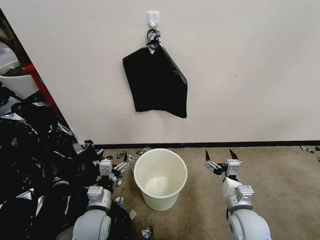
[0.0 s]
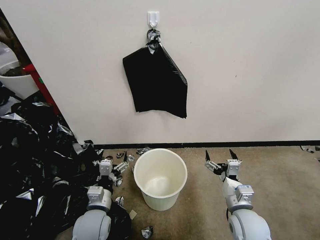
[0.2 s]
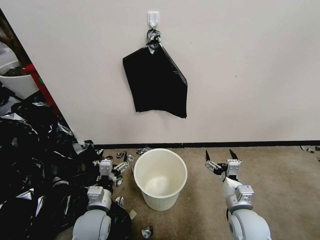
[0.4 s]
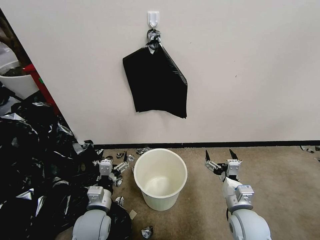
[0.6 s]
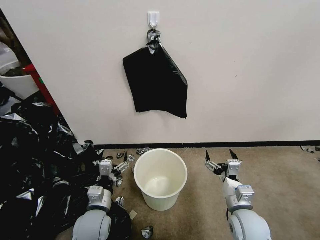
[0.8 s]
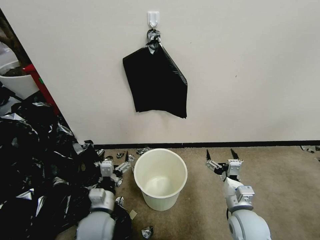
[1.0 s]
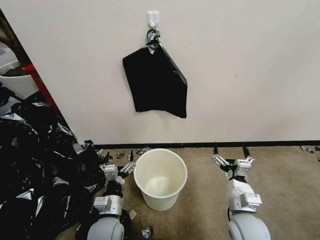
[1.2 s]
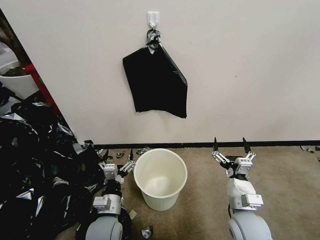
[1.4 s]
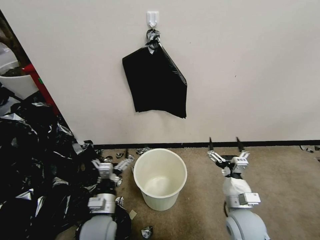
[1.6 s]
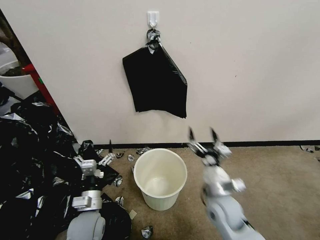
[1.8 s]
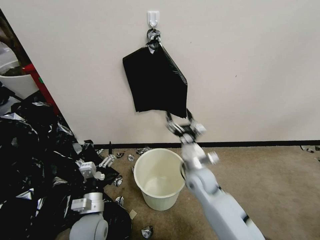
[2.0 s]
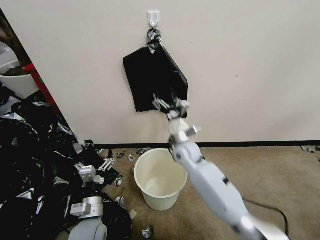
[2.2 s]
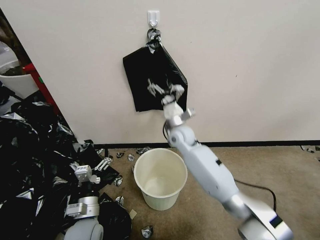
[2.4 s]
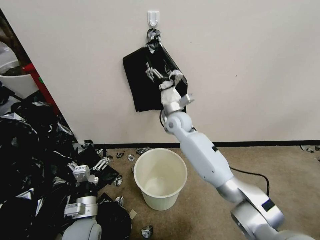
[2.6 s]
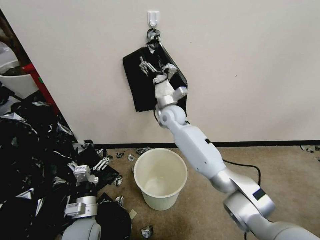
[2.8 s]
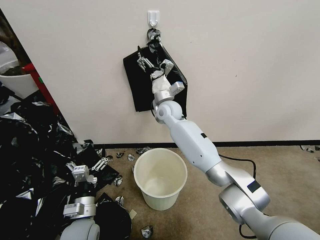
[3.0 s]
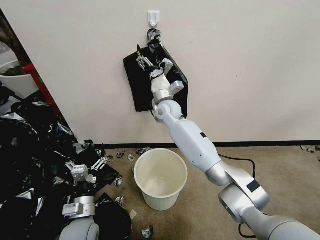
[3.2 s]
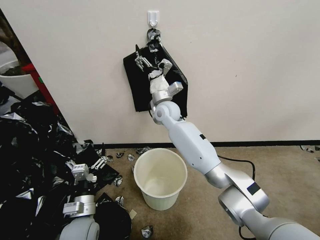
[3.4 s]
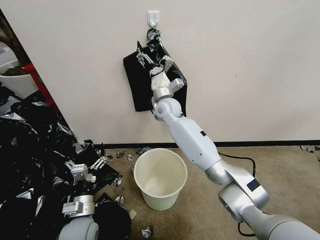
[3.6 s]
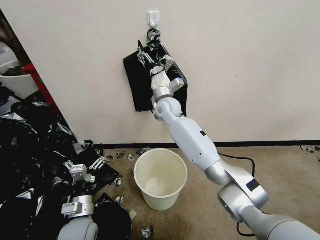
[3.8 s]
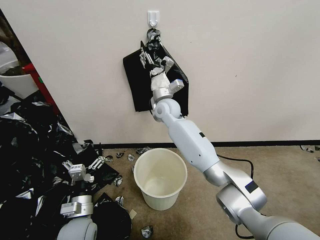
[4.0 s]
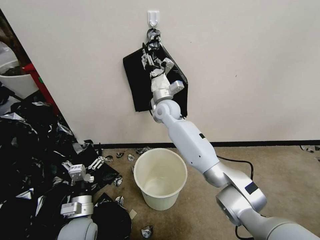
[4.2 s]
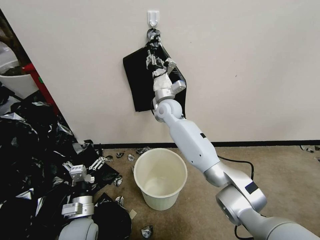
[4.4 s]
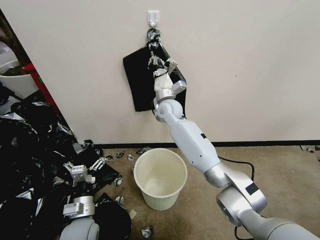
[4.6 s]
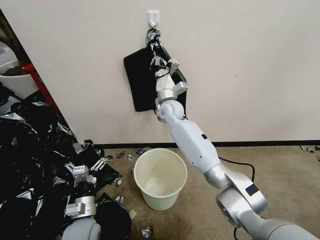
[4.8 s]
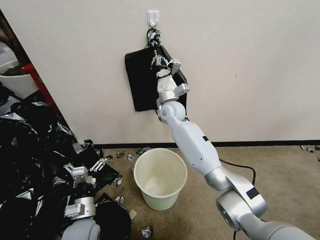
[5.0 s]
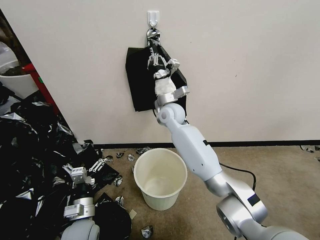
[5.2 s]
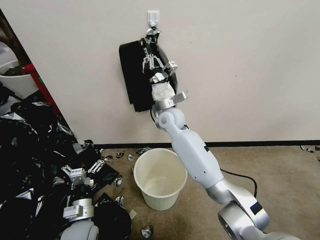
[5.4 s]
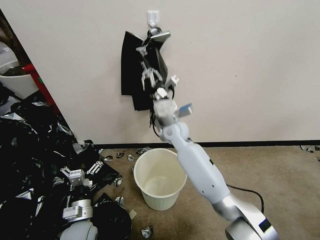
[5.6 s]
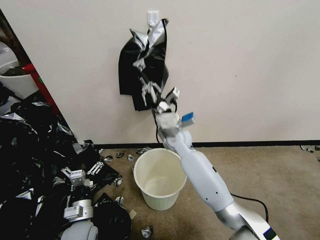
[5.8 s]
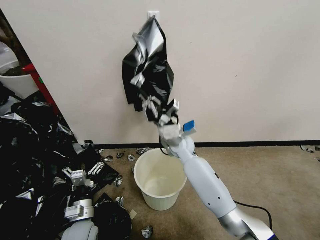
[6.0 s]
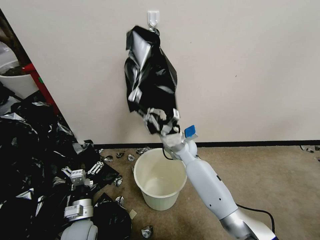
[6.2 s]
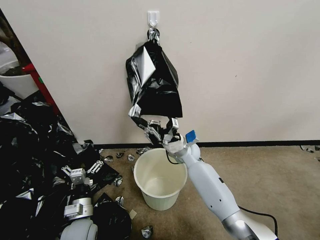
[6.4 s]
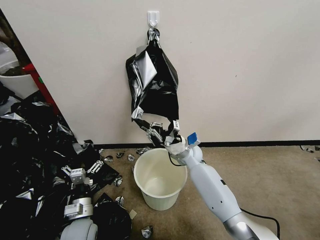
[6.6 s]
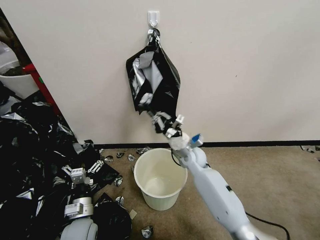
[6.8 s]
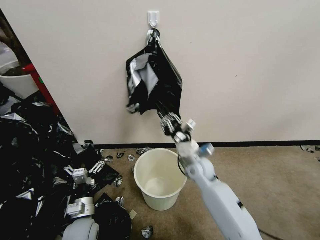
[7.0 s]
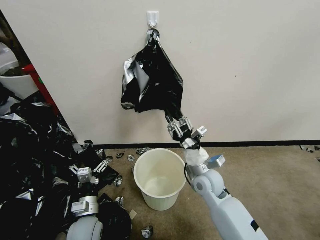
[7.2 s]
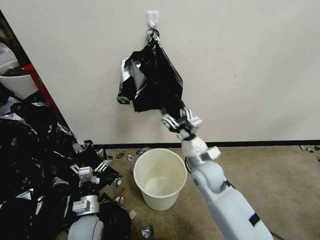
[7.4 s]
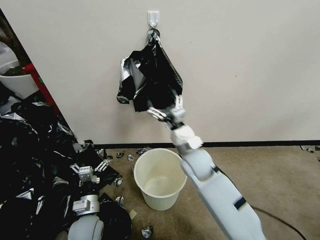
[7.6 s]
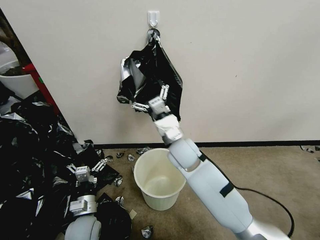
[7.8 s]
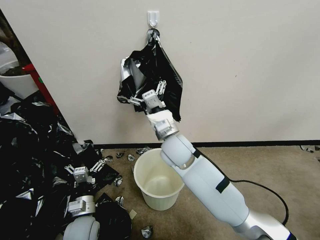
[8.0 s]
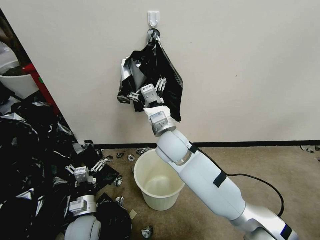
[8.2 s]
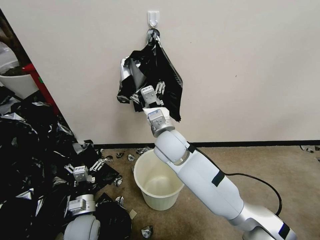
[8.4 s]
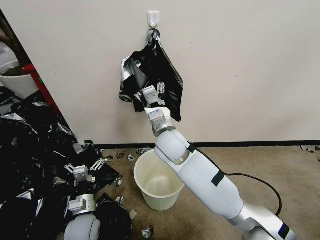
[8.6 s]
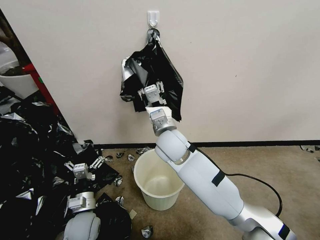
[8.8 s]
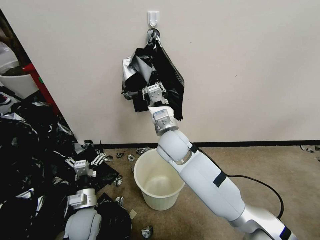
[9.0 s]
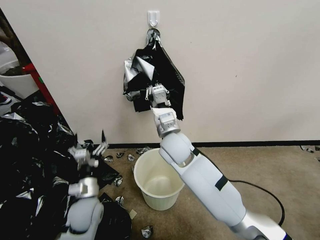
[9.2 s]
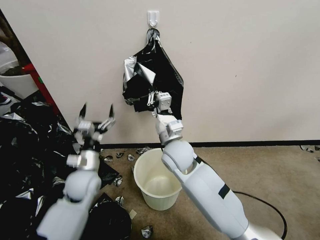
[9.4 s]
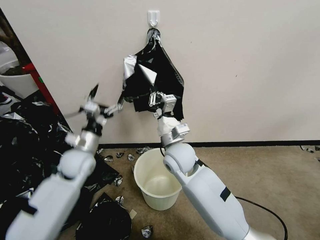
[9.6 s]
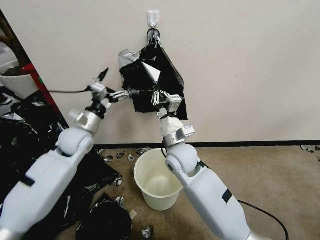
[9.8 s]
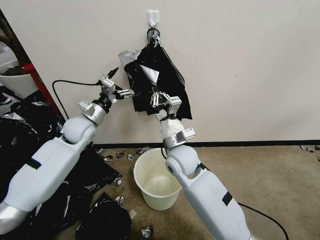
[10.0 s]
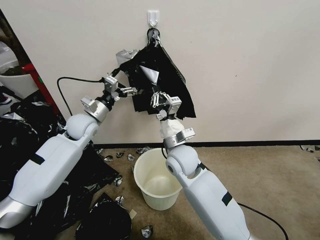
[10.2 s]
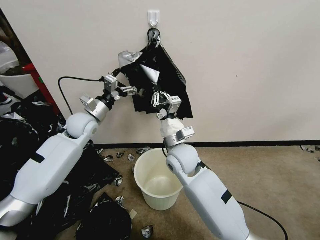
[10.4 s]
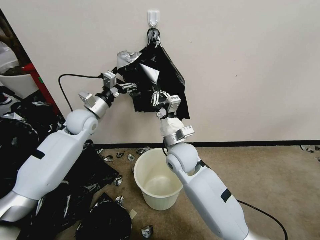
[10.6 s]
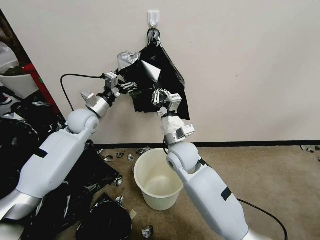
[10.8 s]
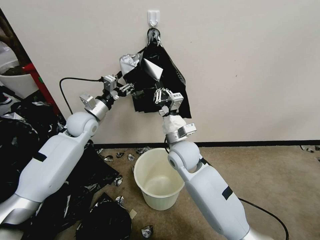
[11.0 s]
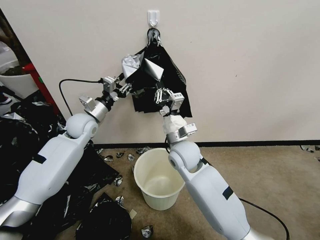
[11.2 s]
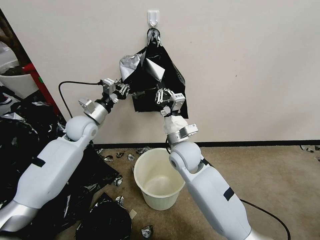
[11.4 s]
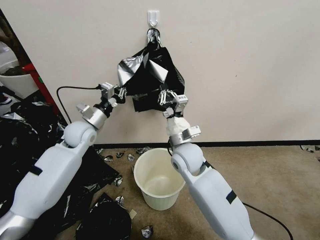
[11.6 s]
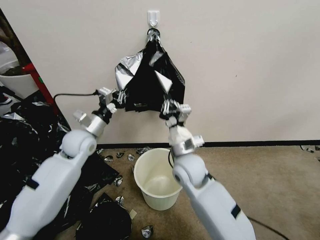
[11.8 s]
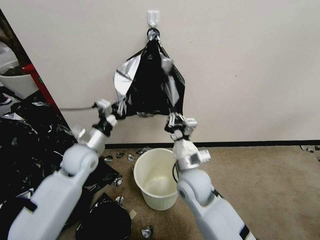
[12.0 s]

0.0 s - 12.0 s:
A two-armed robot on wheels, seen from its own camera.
Task of the whole recording: Place a trash bag onto the trash bin.
1.6 s - 3.0 s: The left gripper heads to the left, covering about 5 cm, while the right gripper is displaced forward, to the left and upward by about 40 cm.
3.0 s - 4.4 s: The right gripper closes up.
4.4 s - 6.0 s: The right gripper goes approximately 15 cm downward and backward.
6.0 s - 7.6 s: The right gripper travels backward by roughly 10 cm, and opens up.
7.6 s - 9.0 s: The right gripper moves to the left and upward, some 10 cm, and closes up.
9.0 s - 10.4 s: The right gripper shifts by some 5 cm; the left gripper heads forward and upward, covering roughly 30 cm.
10.4 s - 12.0 s: The right gripper shifts approximately 5 cm backward; the left gripper heads backward and downward, covering approximately 10 cm, and closes.

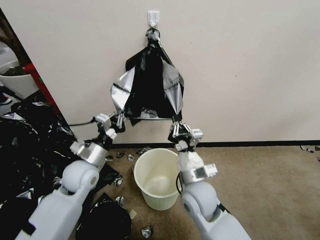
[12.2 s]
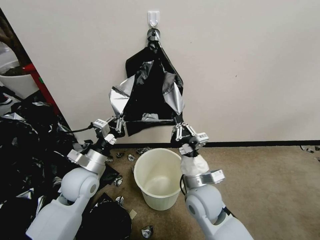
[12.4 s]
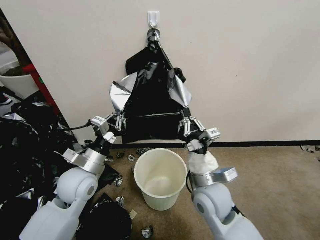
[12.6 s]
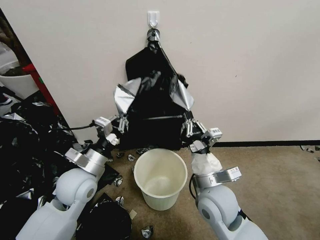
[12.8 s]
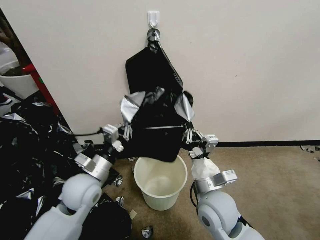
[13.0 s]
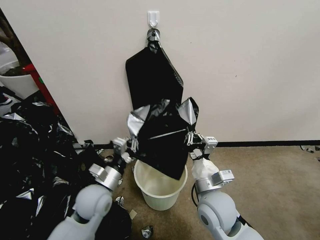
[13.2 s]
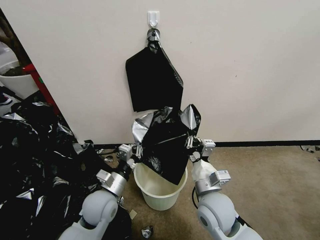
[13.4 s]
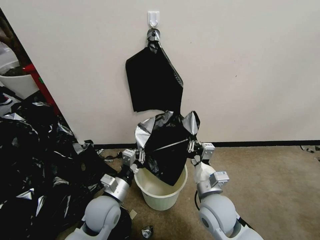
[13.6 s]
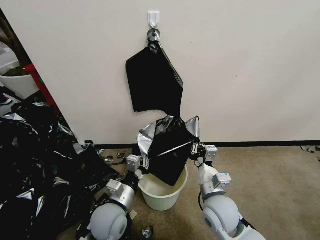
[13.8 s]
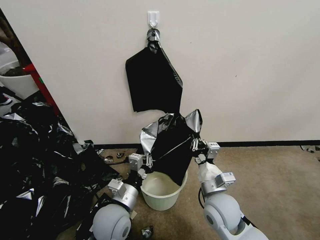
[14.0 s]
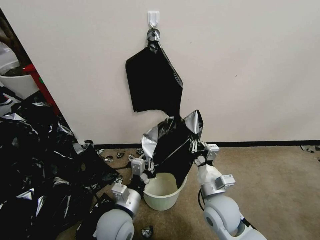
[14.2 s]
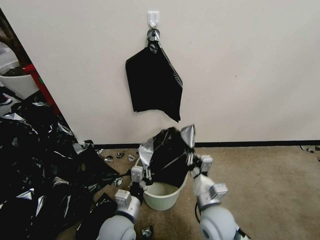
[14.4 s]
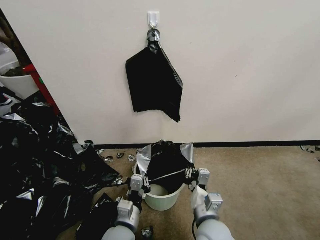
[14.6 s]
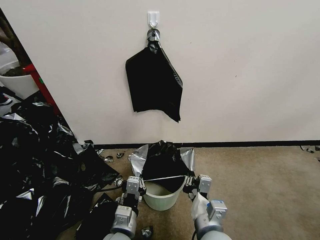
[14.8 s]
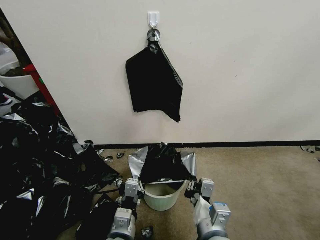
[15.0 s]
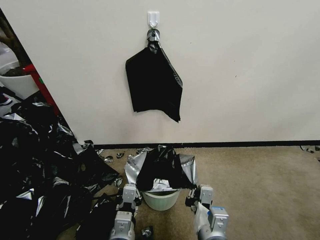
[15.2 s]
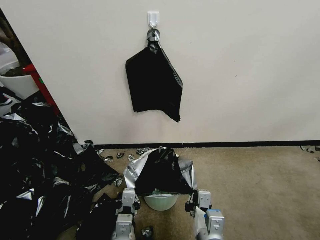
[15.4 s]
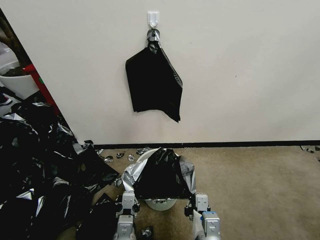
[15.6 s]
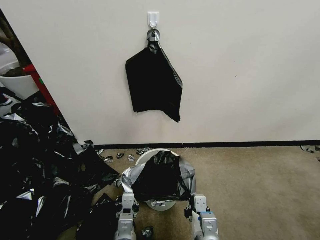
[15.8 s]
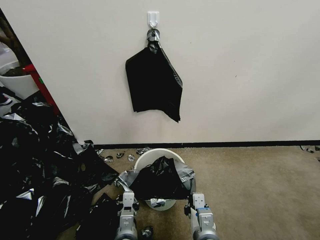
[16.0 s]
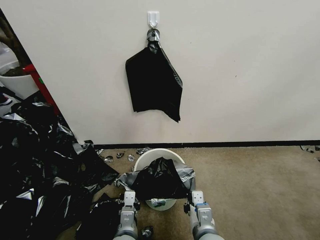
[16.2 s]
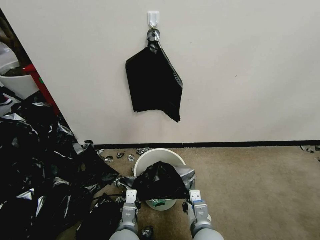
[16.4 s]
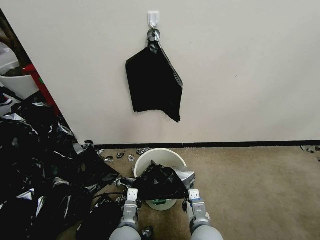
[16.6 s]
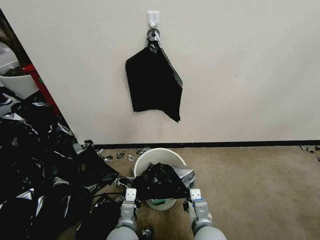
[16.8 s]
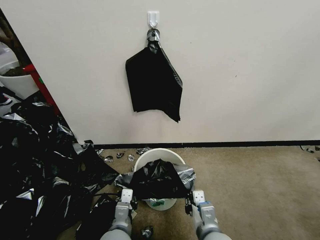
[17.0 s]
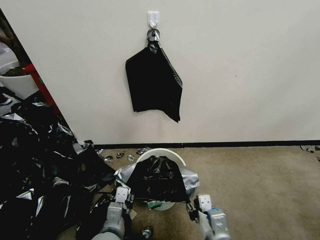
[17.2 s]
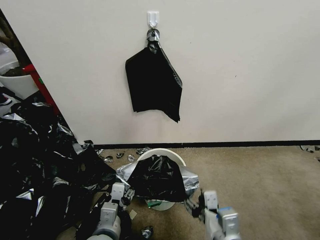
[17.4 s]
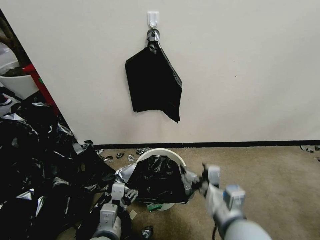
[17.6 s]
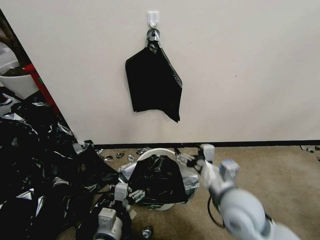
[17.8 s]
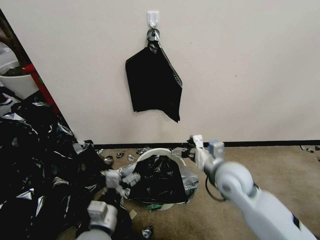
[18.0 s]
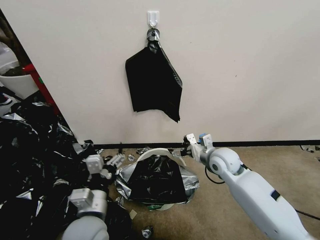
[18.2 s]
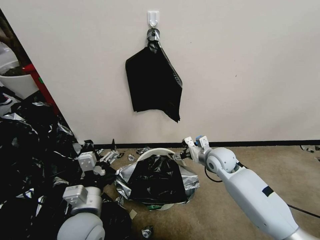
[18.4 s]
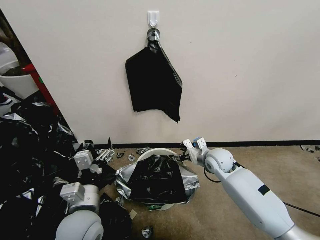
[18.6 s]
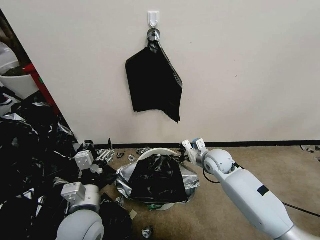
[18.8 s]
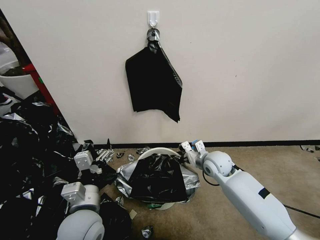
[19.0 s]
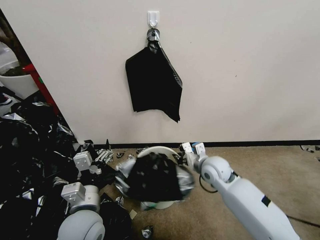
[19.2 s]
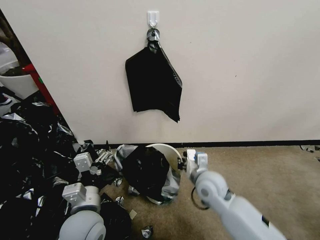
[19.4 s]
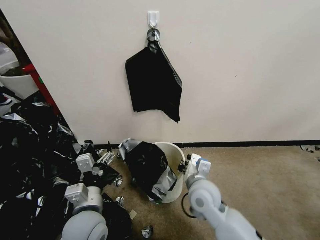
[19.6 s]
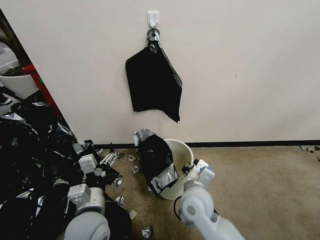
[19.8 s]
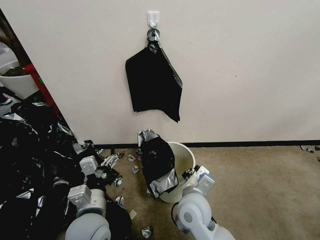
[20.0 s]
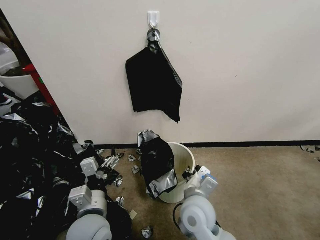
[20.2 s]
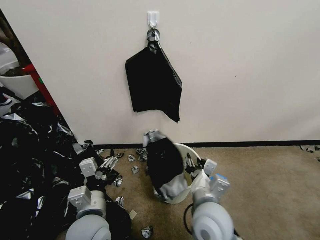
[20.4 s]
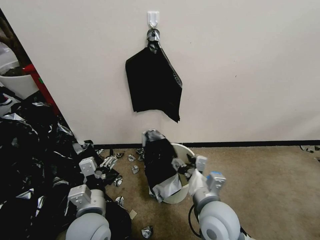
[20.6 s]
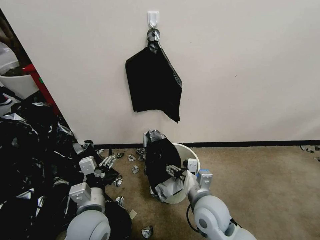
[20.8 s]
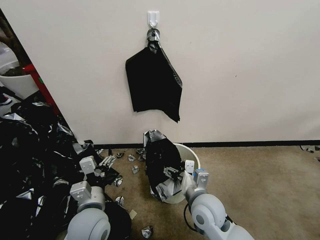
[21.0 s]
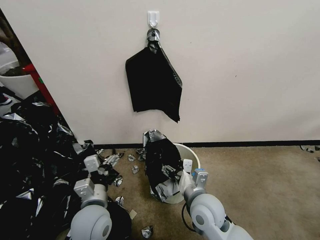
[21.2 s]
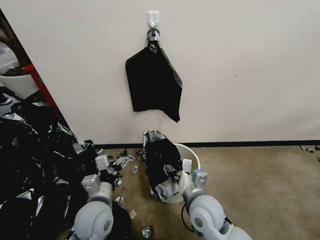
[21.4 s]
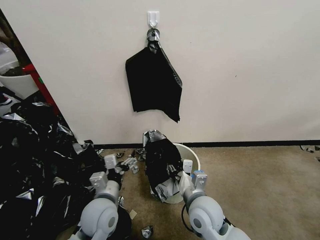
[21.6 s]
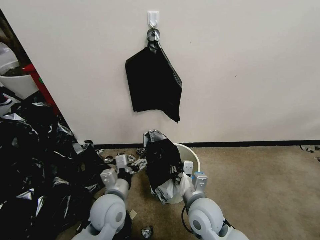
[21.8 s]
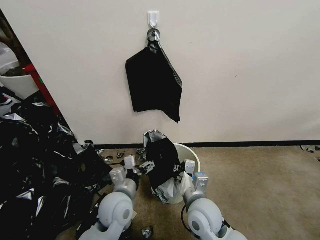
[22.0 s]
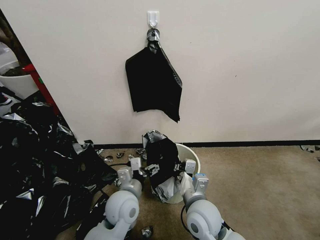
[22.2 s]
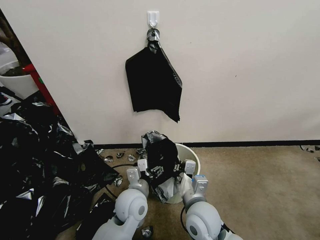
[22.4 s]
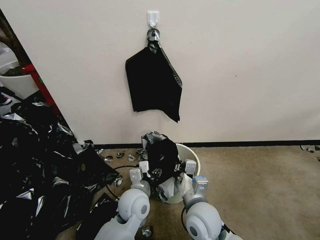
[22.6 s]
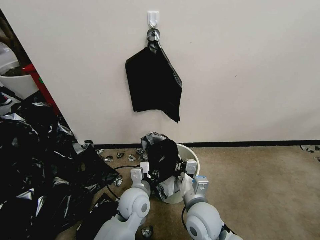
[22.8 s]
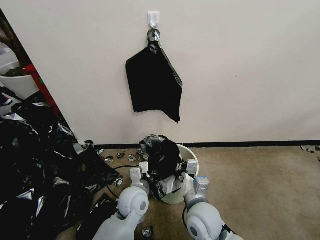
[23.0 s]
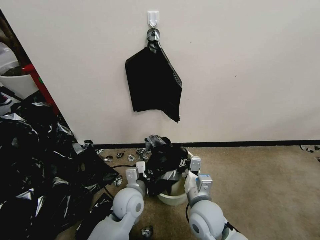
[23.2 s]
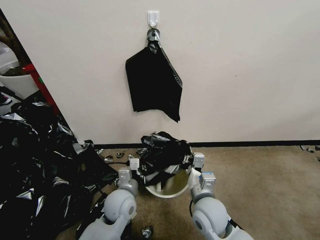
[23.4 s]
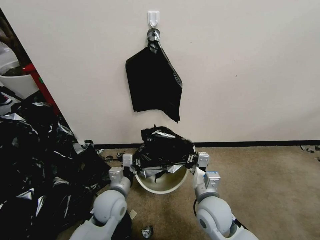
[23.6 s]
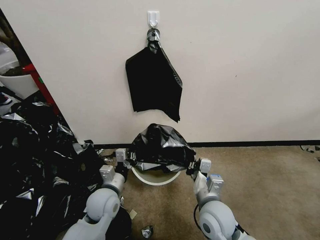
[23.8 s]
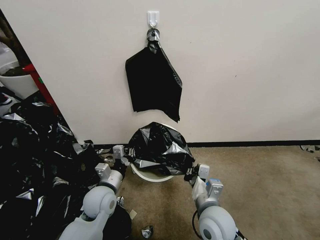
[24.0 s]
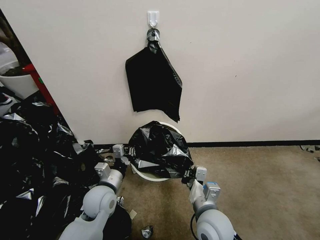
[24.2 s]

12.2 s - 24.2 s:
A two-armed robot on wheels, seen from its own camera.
Task of the whole recording: Place a trash bag onto the trash bin.
12.2 s - 13.8 s: The right gripper is displaced to the right by some 5 cm. Meanwhile the left gripper is displaced backward, to the right and downward by about 15 cm.
13.8 s - 15.2 s: Both grippers travel together backward, about 10 cm.
15.2 s - 16.6 s: The right gripper goes approximately 10 cm downward. The left gripper goes some 10 cm downward and forward.
16.6 s - 18.2 s: The left gripper travels upward and to the left by approximately 15 cm, and opens up; the right gripper shifts roughly 25 cm forward and to the right, and opens up.
18.2 s - 19.8 s: The right gripper is displaced backward and to the left by about 20 cm, and closes up.
19.8 s - 21.2 s: The right gripper opens.
21.2 s - 22.6 s: The right gripper closes its fingers. The left gripper moves to the right and forward, some 10 cm.
22.6 s - 24.2 s: The left gripper is displaced to the left by roughly 10 cm, and closes up.
